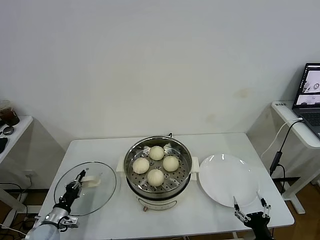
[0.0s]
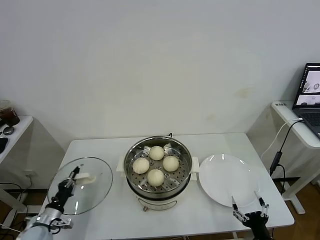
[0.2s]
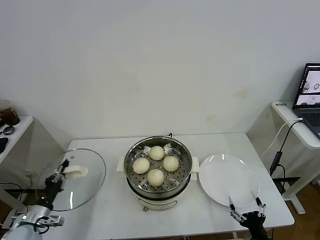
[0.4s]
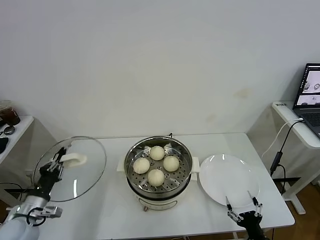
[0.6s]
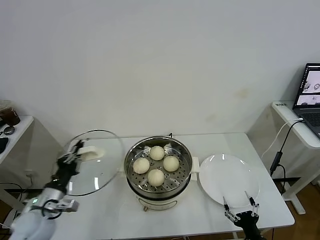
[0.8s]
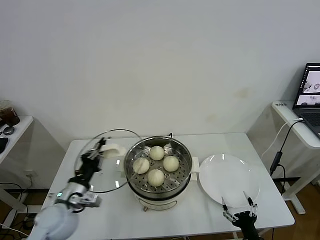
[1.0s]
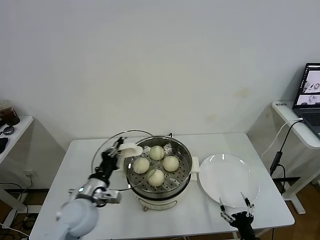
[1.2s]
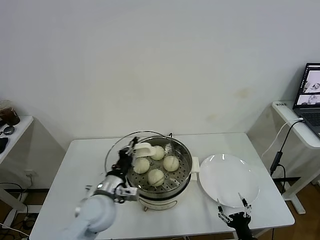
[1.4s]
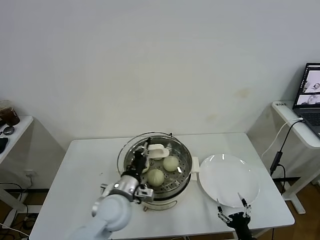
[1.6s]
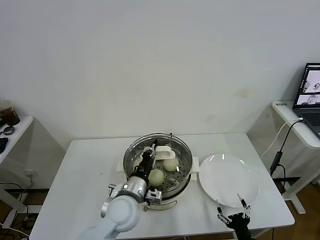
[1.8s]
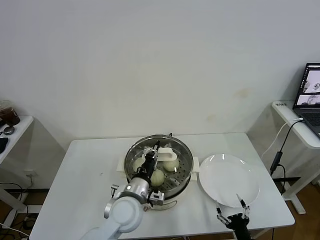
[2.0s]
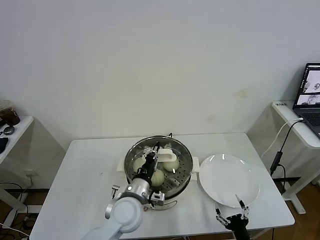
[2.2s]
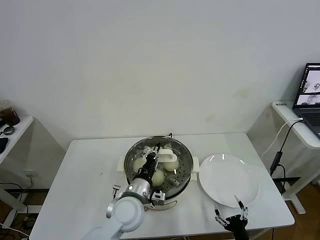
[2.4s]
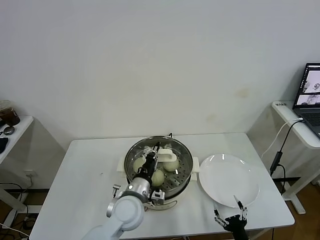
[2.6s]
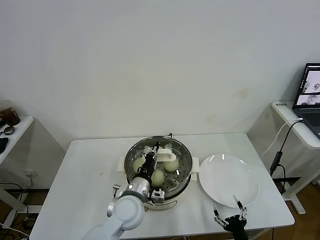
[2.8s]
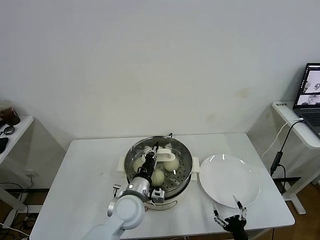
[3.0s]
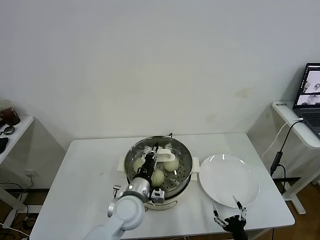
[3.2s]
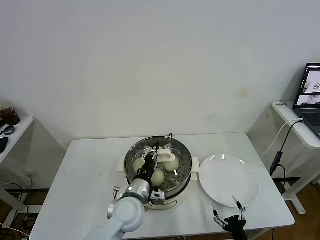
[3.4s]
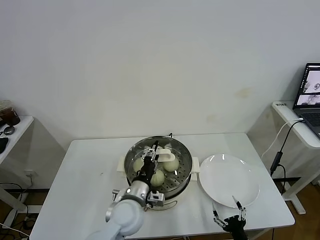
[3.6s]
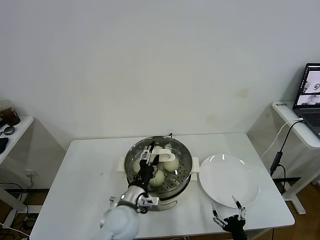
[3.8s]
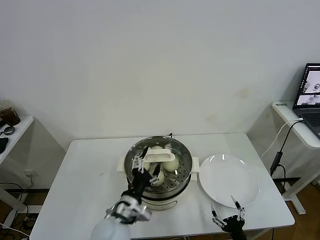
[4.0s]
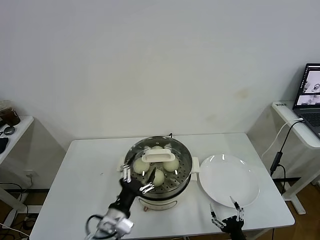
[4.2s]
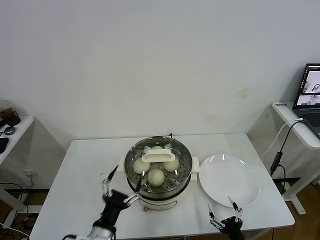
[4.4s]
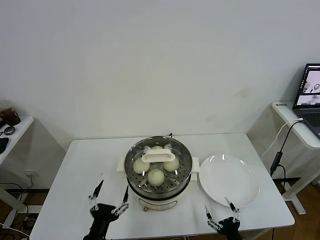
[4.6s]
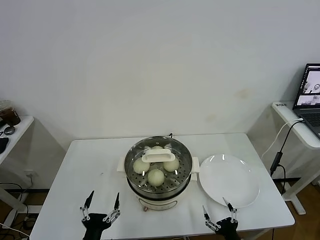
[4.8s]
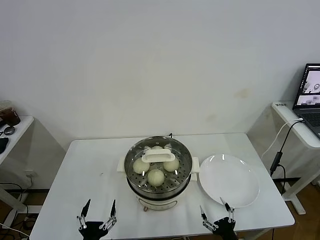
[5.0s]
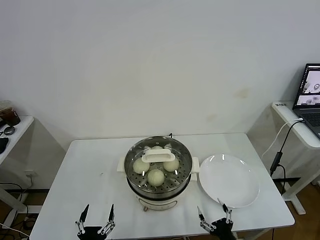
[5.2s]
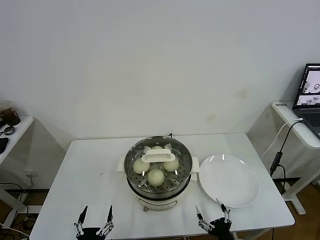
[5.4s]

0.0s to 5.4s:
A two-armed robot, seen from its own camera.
Task of the whole recording: take steamed baozi put them in steamer.
Step, 0.0s to 3.6s: Place the pot lid on the steamer with left gripper.
0.0s to 1.4s: The left gripper is displaced to the right and upward by approximately 30 cm. Meanwhile the right gripper ends up approximately 5 cm from where it was.
1.4s to 2.8s: The left gripper shifts approximately 10 cm to the right.
2.8s to 4.0s: The left gripper goes some 5 cm backward, and opens its fingers.
4.0s to 5.4s: The left gripper moves backward, to the left and downward, approximately 25 cm.

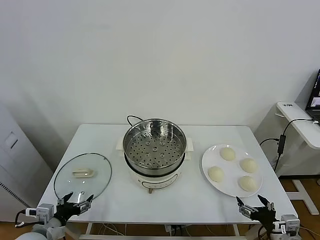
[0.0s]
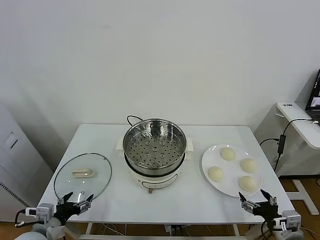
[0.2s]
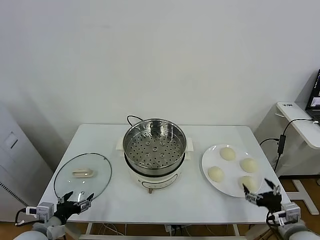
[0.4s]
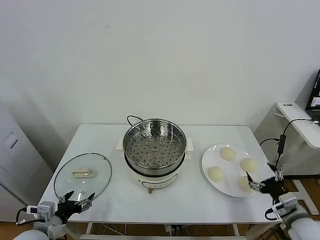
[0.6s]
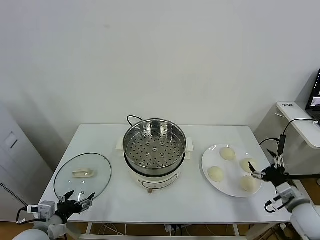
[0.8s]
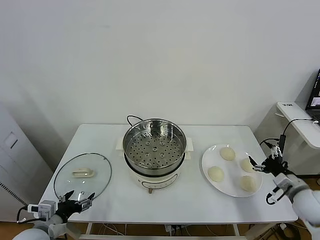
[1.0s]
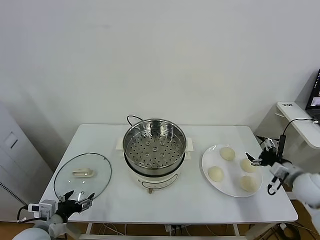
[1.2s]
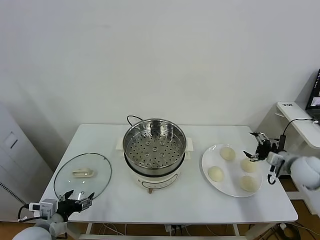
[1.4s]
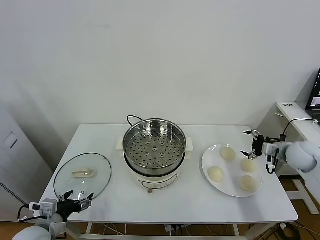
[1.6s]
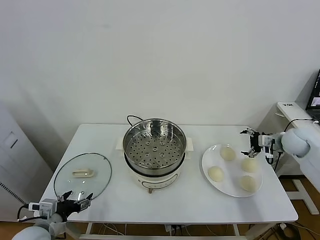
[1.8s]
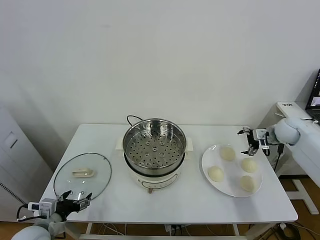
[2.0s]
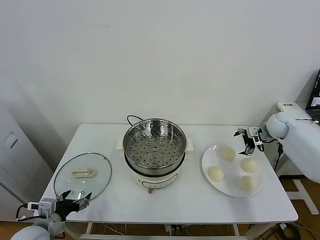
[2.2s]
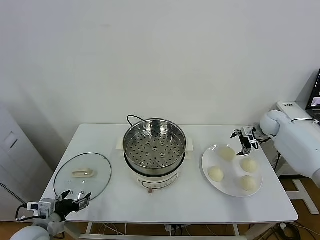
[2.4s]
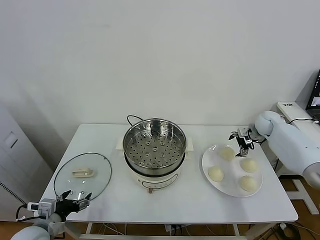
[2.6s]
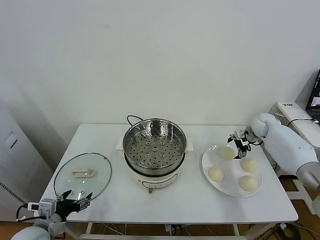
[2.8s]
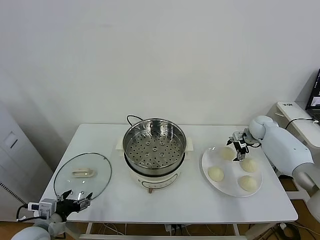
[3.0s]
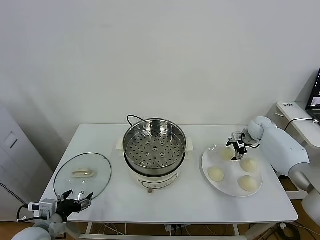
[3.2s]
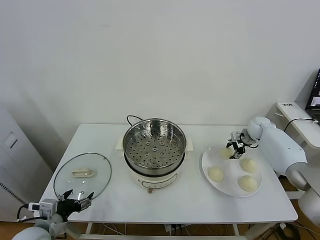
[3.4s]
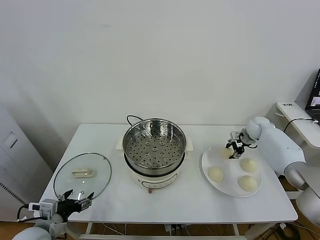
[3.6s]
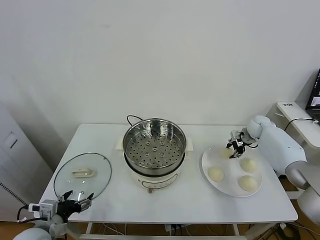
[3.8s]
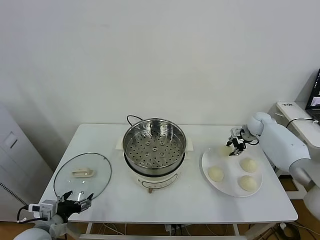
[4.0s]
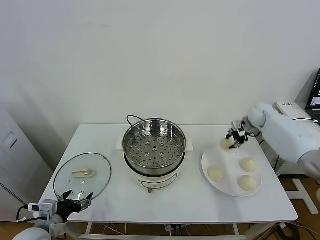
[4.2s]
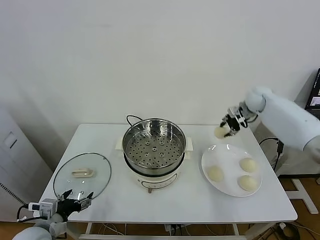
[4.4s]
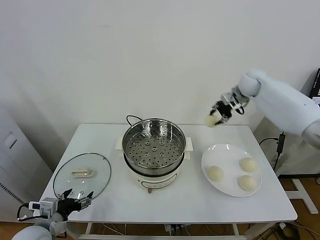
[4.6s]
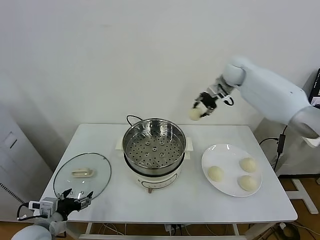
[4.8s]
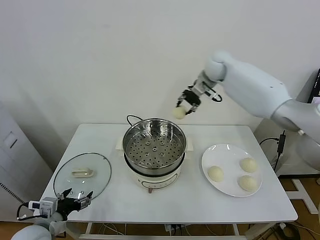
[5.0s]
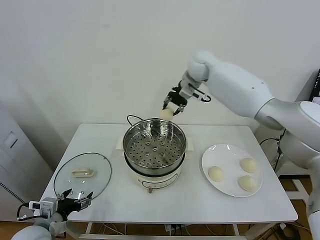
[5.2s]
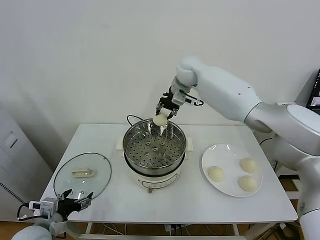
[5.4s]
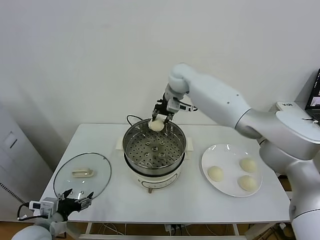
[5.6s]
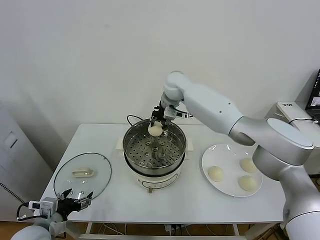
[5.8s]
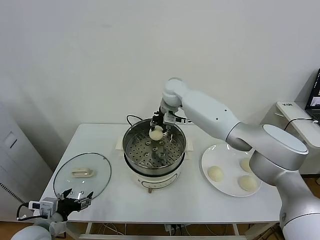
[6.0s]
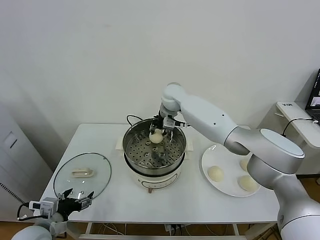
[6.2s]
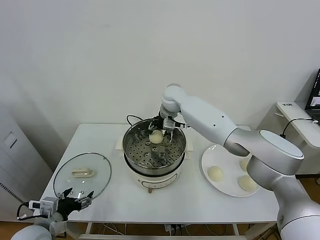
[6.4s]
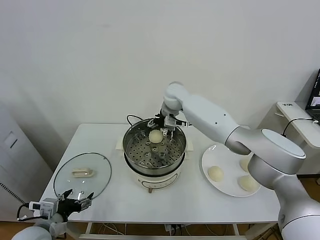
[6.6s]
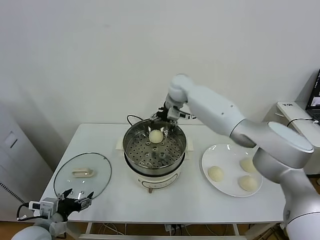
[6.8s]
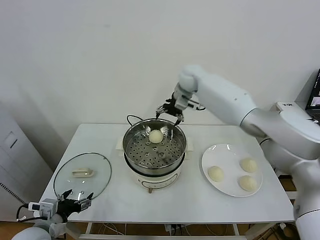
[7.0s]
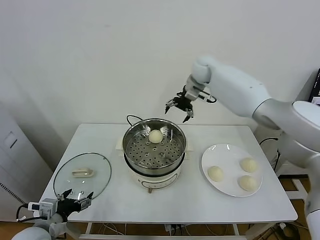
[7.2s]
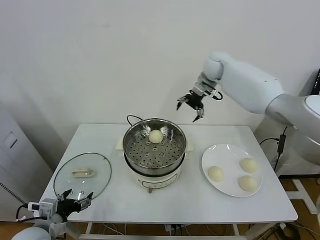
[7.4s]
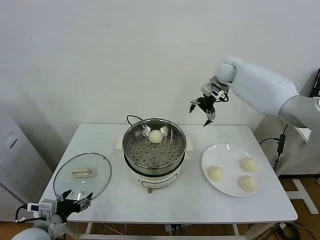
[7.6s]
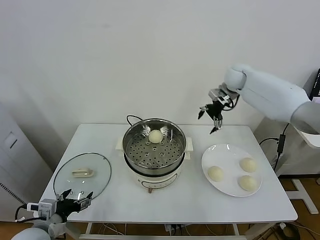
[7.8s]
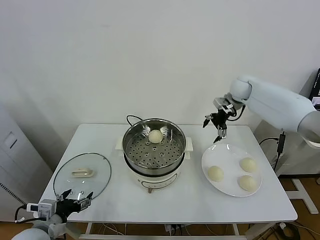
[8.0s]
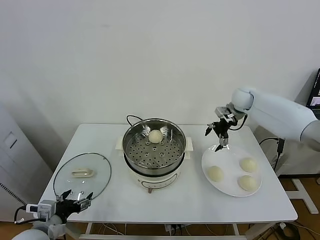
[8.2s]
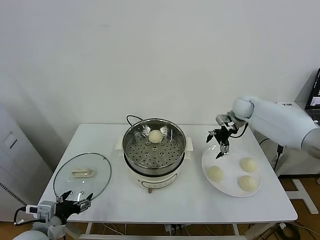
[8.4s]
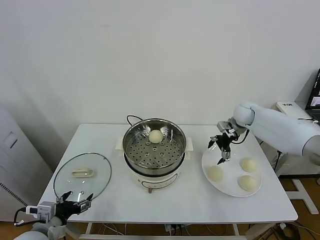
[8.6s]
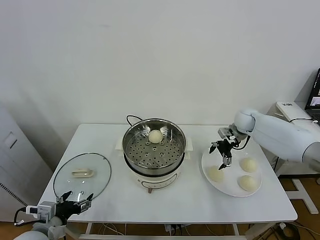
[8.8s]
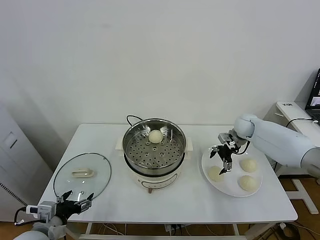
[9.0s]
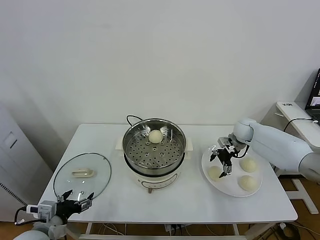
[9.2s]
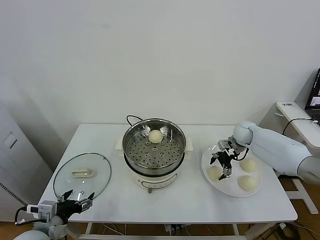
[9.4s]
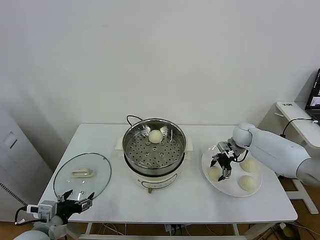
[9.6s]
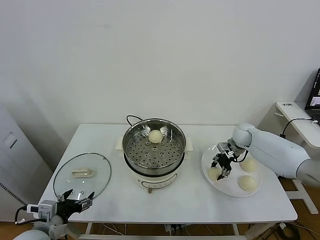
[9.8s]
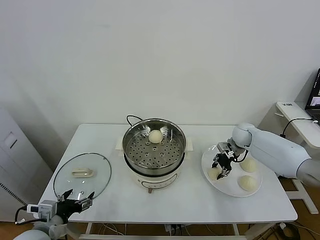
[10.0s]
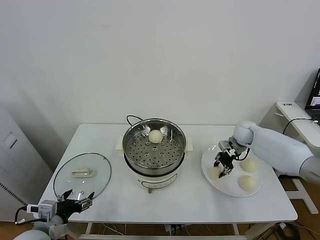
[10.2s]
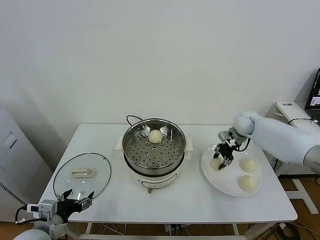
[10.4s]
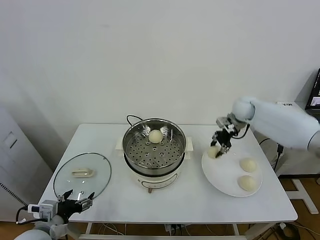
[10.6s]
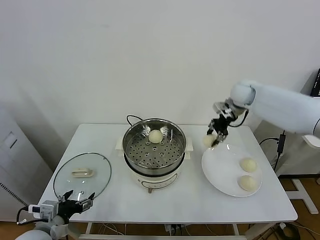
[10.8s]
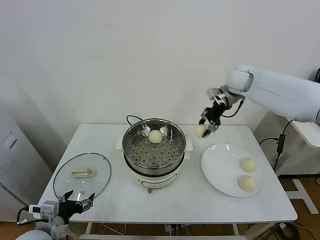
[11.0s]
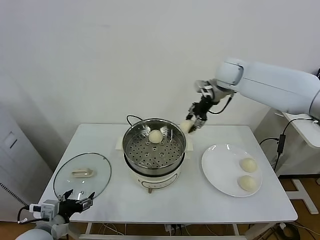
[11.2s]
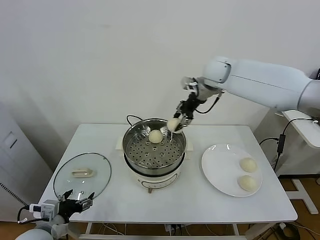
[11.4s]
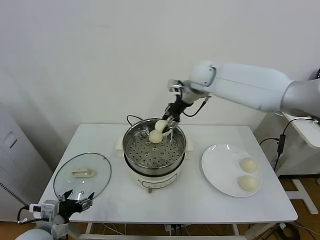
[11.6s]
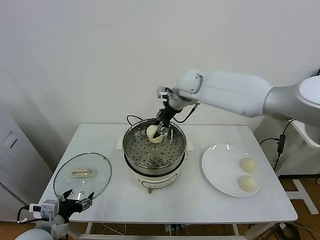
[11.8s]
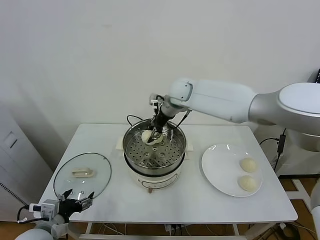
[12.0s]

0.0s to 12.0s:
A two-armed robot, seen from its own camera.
Task of the whole recording: take steamed baozi put them in steamer.
Step, 0.0s to 3.2s: Grasp the baozi in the plate with right gripper.
Step, 3.4s to 6.6s: Place the baozi on the steamer with right gripper.
Step, 6.8s to 9.6s: Grasp the baozi in the plate with right gripper.
1.6s to 3.0s: The right gripper is displaced forward by about 15 cm.
3.0s to 4.4s: The right gripper shifts approximately 15 cm upward, and closes up.
4.4s to 6.0s: The right gripper goes about 30 cm to the left.
6.0s to 7.6s: The right gripper heads to the right, covering some 20 cm, and opens.
7.6s to 9.0s: The right gripper is displaced downward and to the right by roughly 25 cm.
9.0s to 10.4s: The right gripper closes up.
10.4s to 12.0s: The right gripper shifts roughly 30 cm to the left and upward.

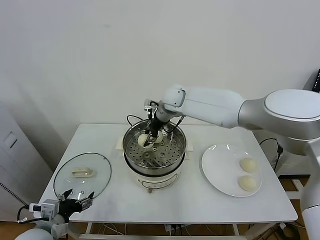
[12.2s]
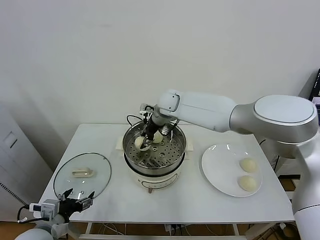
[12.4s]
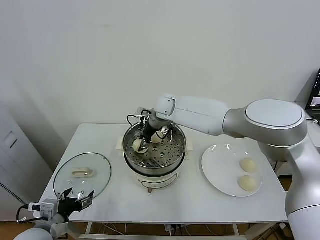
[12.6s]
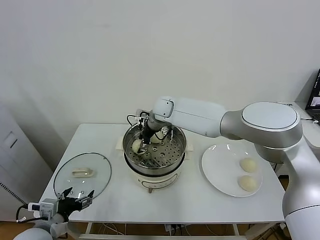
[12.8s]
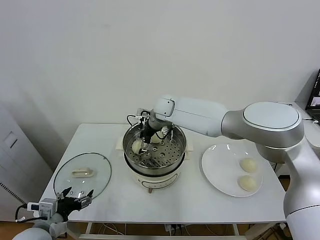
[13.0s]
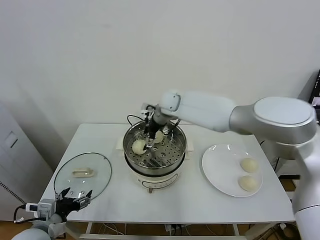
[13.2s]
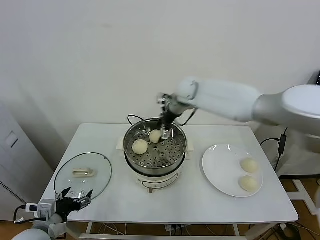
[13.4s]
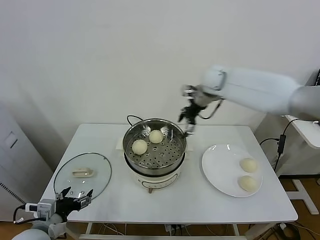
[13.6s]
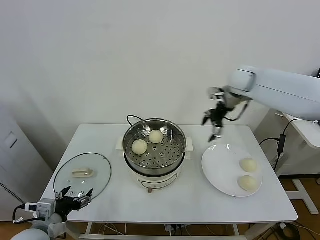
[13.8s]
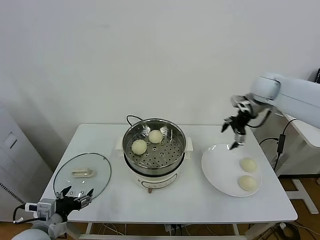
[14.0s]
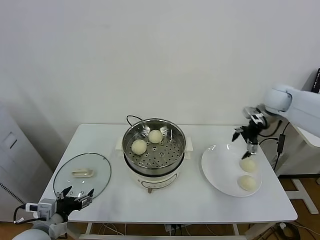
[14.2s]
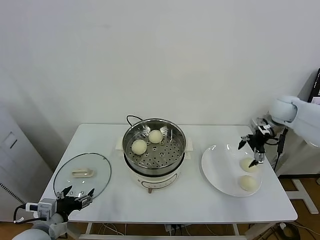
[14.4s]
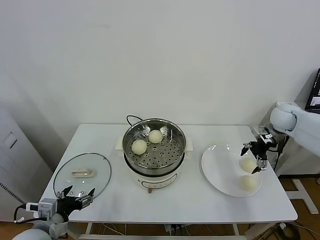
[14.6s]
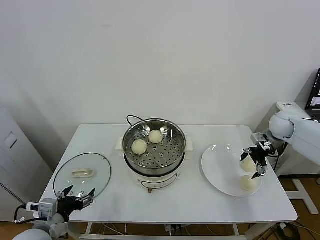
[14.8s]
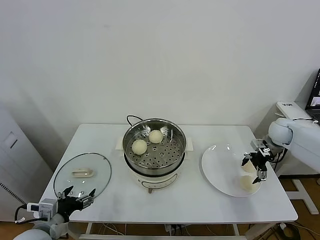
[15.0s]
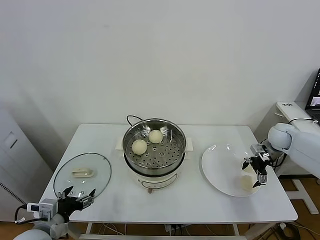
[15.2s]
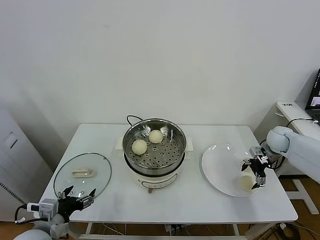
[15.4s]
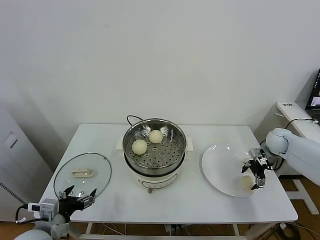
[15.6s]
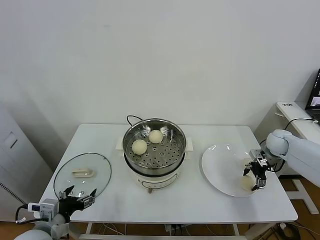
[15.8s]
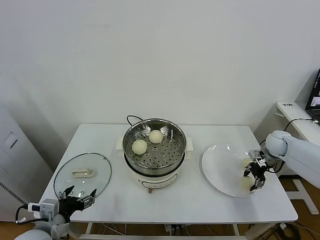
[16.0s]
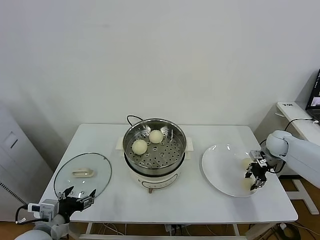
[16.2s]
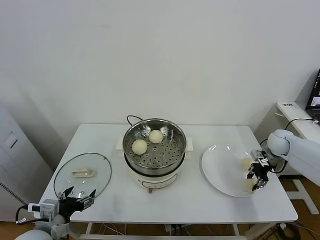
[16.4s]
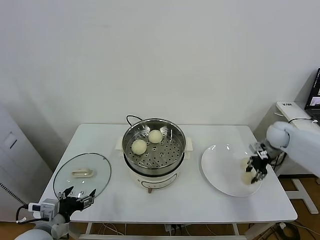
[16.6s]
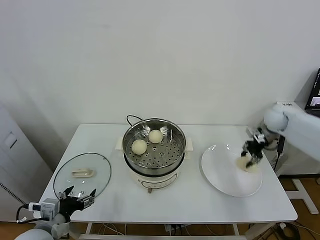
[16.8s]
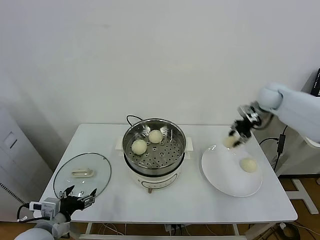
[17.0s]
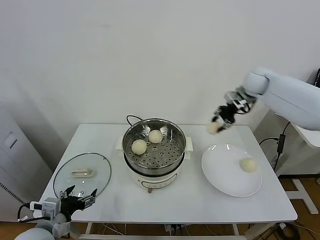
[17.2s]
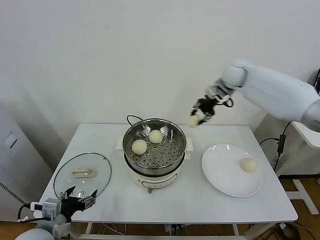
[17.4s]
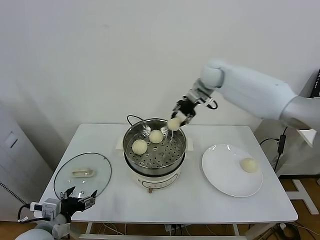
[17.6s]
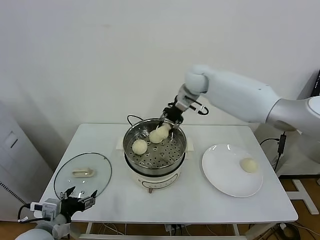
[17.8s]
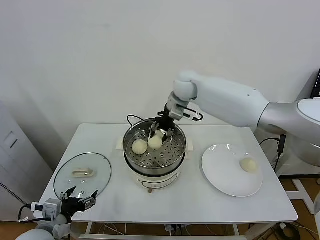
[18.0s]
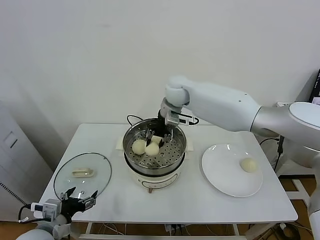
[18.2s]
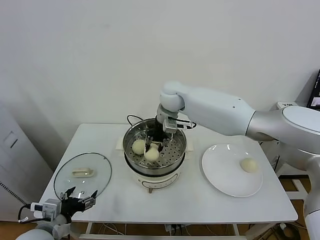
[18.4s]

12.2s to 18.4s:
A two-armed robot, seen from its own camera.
Task of the whole recording: take steamed baozi put them in steamer.
Step, 13.2s to 15.8s: Grasp the baozi in the plate with right gripper.
12.2s to 13.8s: The right gripper moves to the right, roughly 25 cm, and opens.
13.8s to 15.4s: The right gripper travels downward and to the right by about 30 cm.
15.4s to 16.8s: The right gripper moves upward, some 10 cm, and closes.
16.8s to 18.4s: The right gripper travels to the left by roughly 40 cm.
